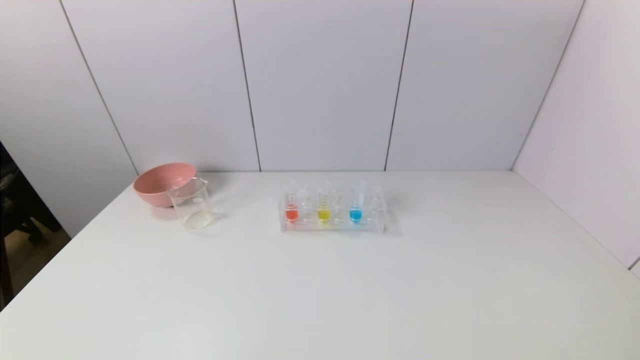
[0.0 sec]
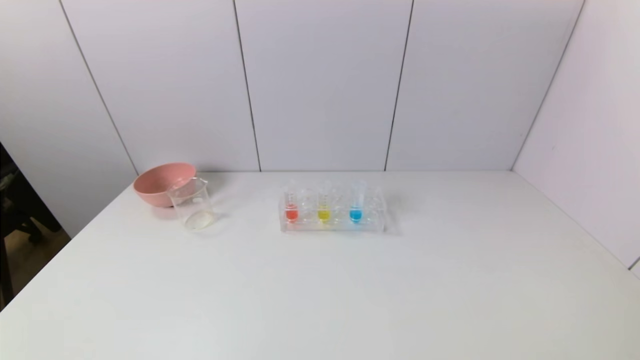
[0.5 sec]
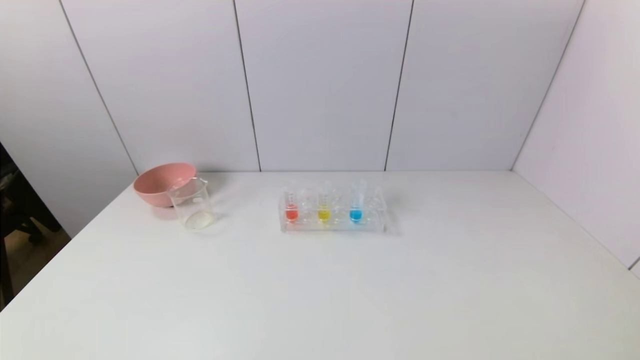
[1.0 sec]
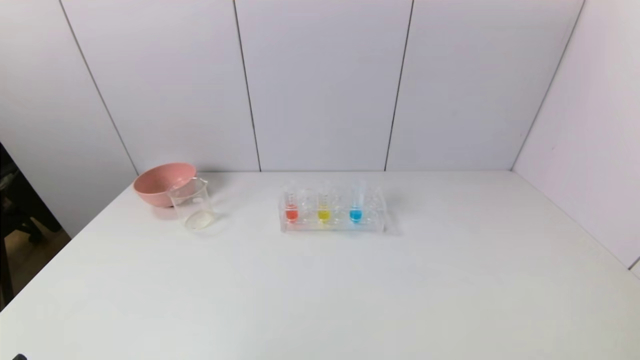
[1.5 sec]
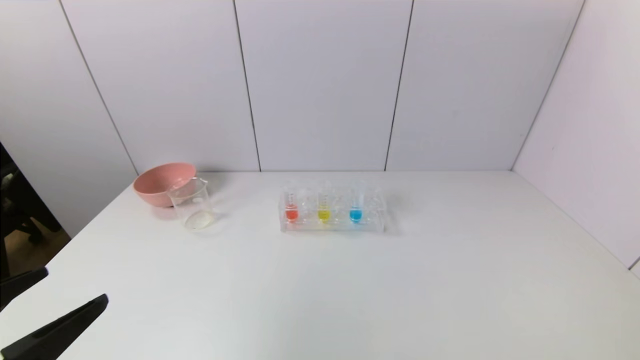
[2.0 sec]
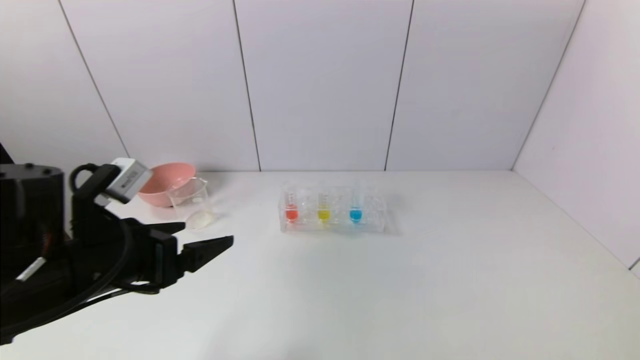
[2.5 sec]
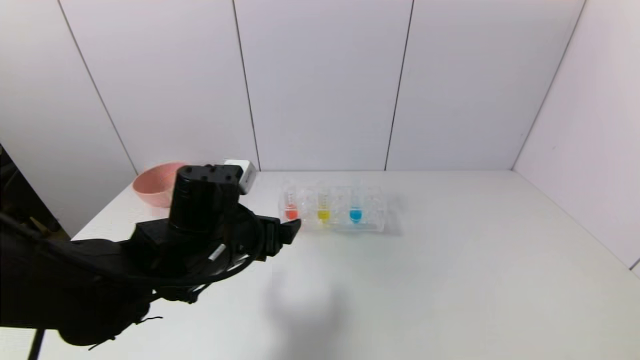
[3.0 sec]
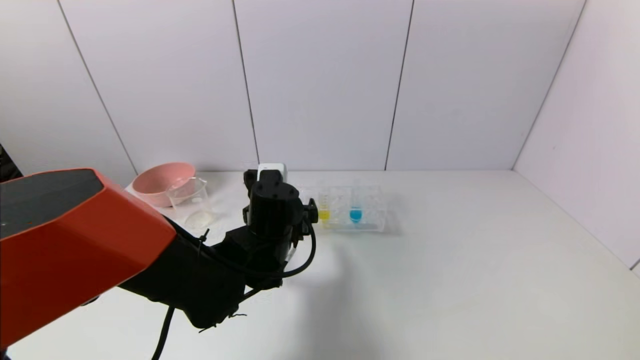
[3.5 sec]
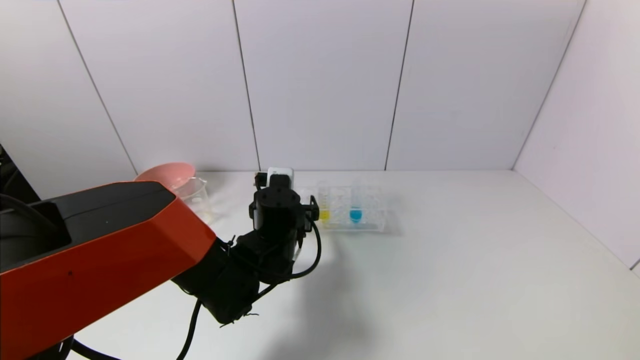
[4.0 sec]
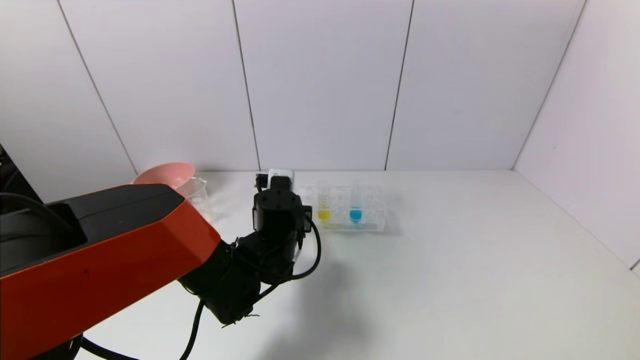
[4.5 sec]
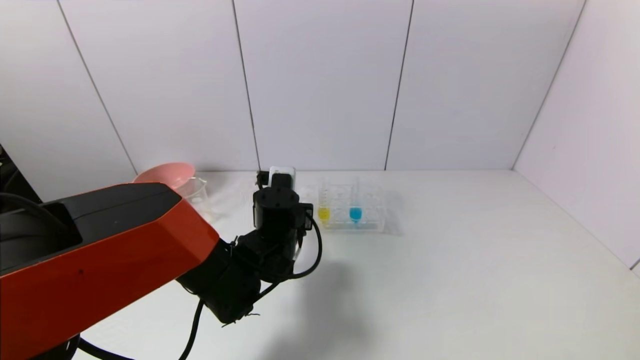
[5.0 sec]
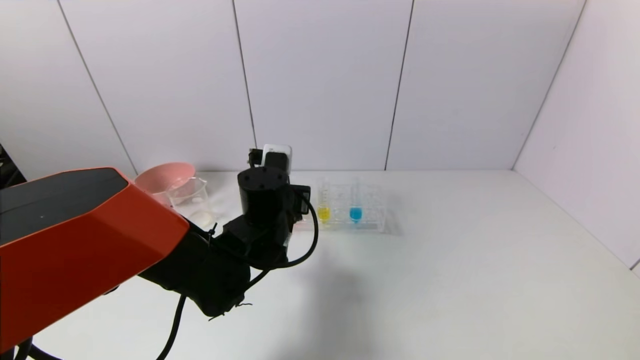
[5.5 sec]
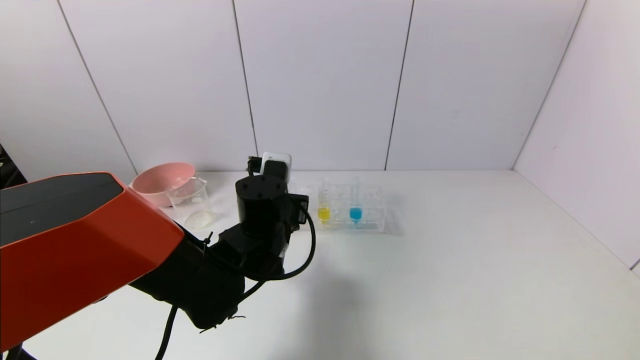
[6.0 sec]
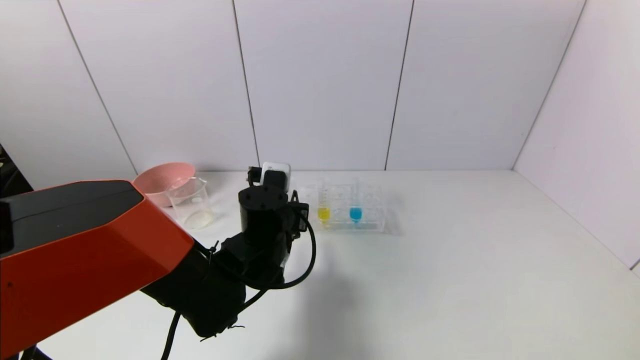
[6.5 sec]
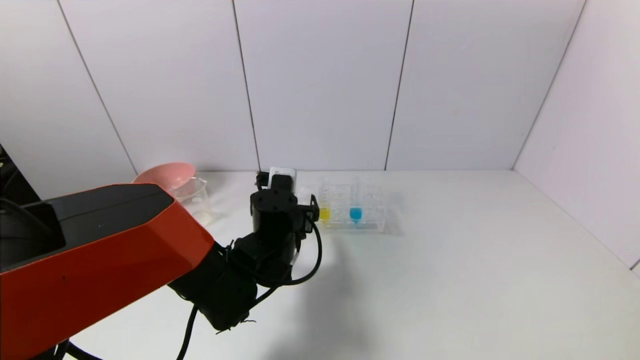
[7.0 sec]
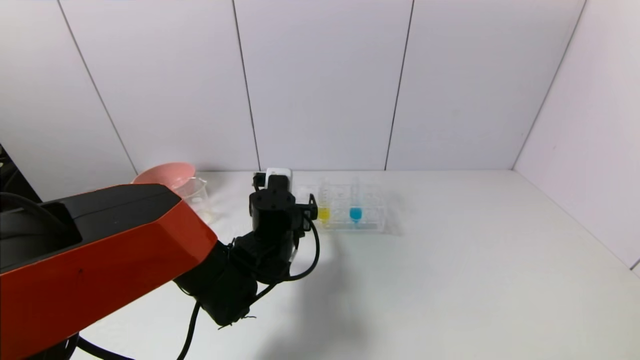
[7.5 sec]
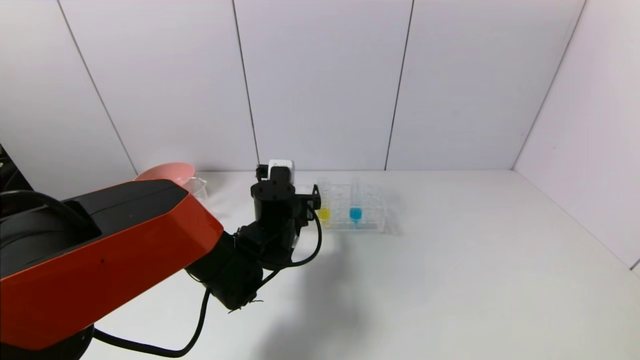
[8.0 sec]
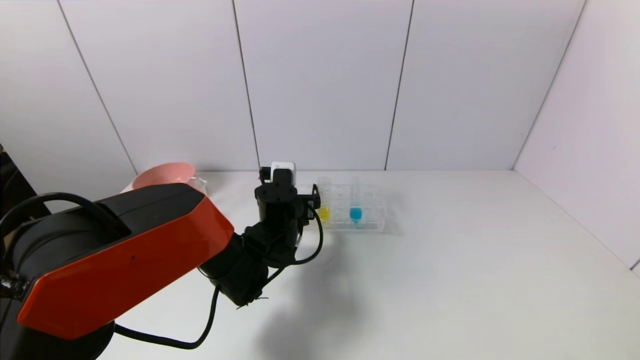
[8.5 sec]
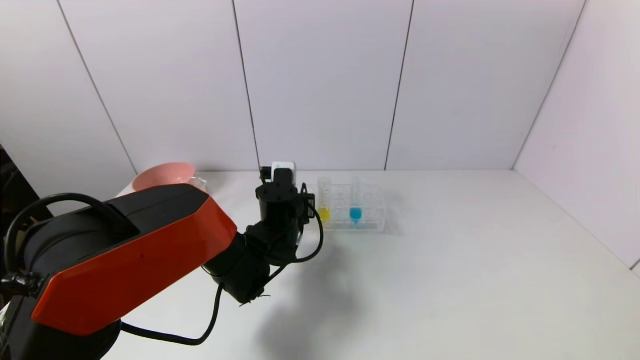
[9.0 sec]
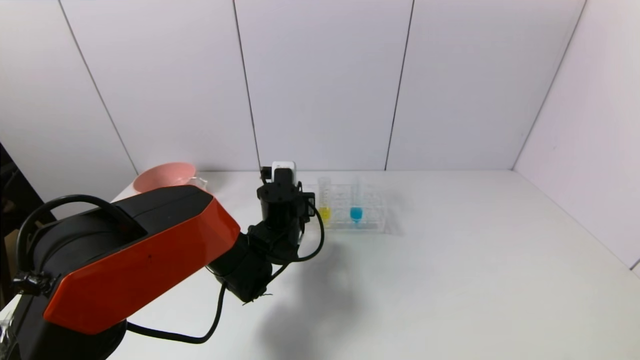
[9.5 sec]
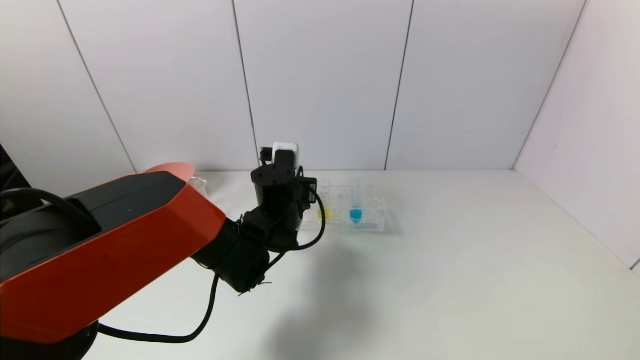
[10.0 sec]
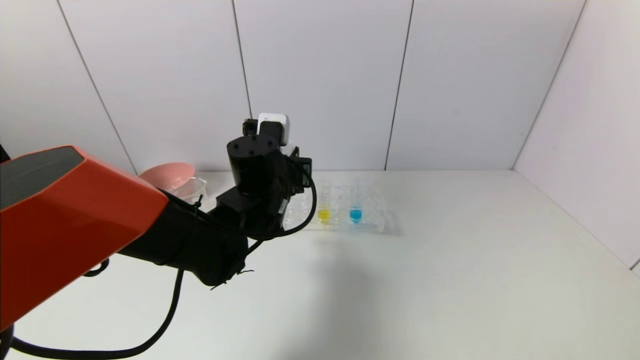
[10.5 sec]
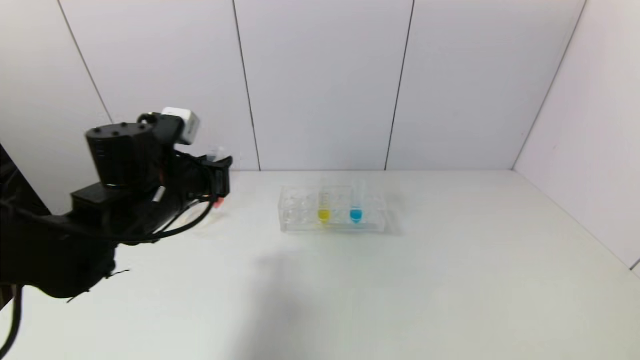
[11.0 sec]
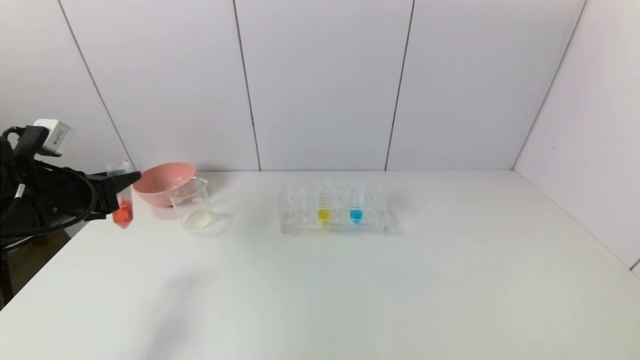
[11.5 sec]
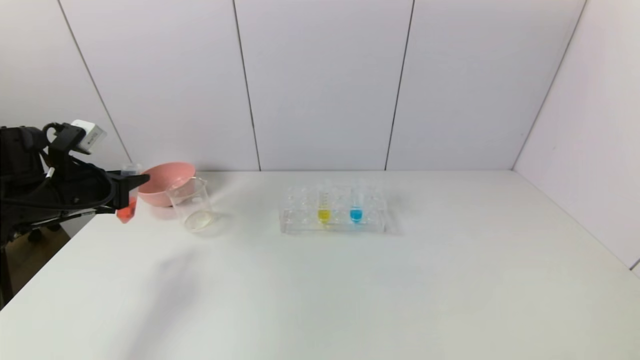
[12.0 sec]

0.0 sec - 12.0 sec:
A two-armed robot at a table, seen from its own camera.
Task of the whole recording: pick up the test tube with yellow pigment and the test tube with red pigment by grippers and pour them into the beaker.
Step, 0.0 sec - 9.0 sec: Grasp the red reagent with the left gripper.
0.0 sec - 2.0 sec: The left gripper heads upward and forward, covering roughly 15 cm.
2.0 sec - 4.0 sec: The left gripper is displaced forward and to the right by roughly 35 cm.
4.0 sec - 6.0 sec: The left gripper closes its fingers.
6.0 sec - 8.0 sec: The left gripper moves roughly 5 cm, and opens.
8.0 sec - 10.0 sec: The left gripper closes its fingers.
10.0 sec - 12.0 sec: The left gripper goes some 30 cm to the left.

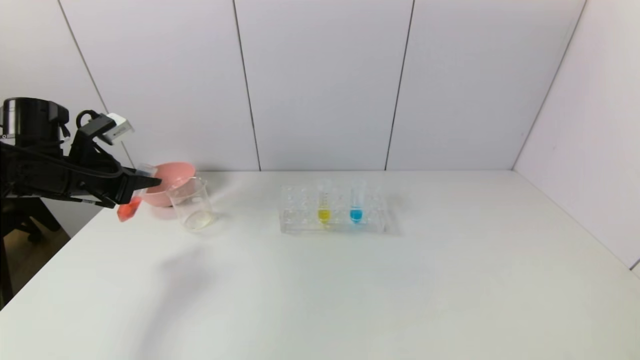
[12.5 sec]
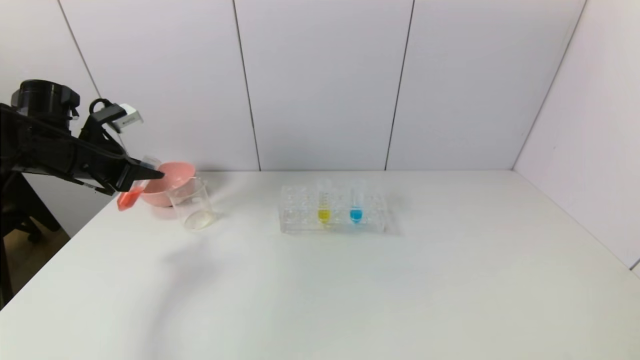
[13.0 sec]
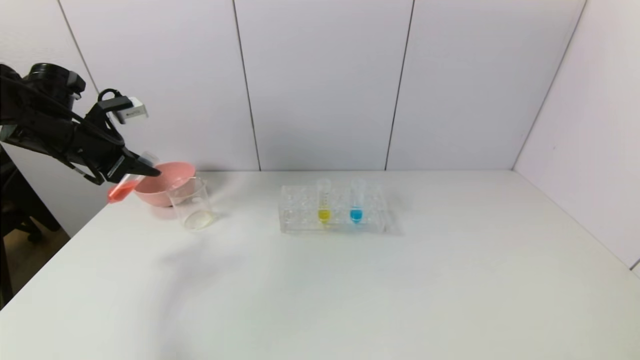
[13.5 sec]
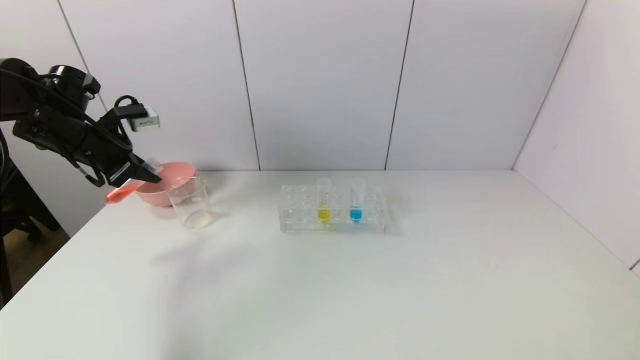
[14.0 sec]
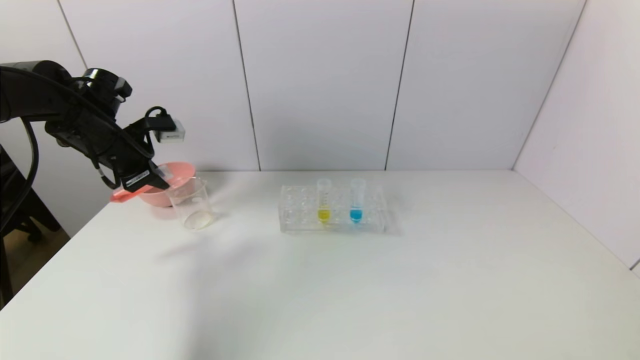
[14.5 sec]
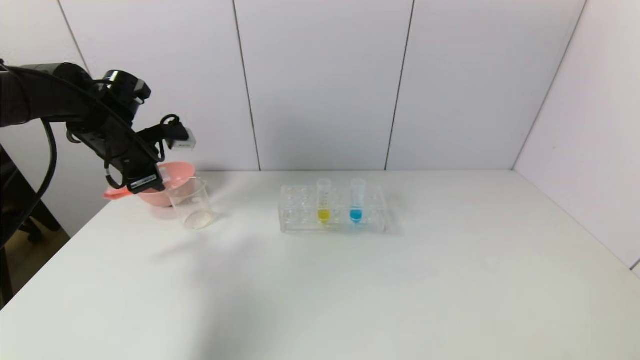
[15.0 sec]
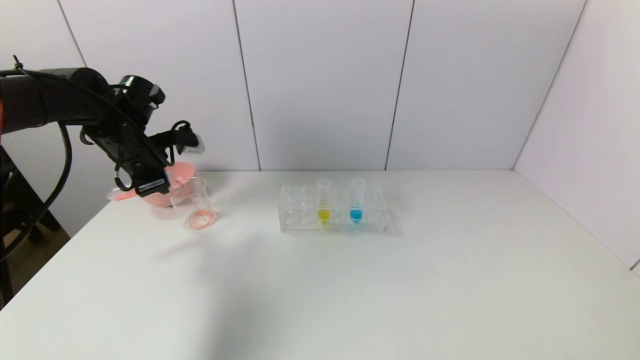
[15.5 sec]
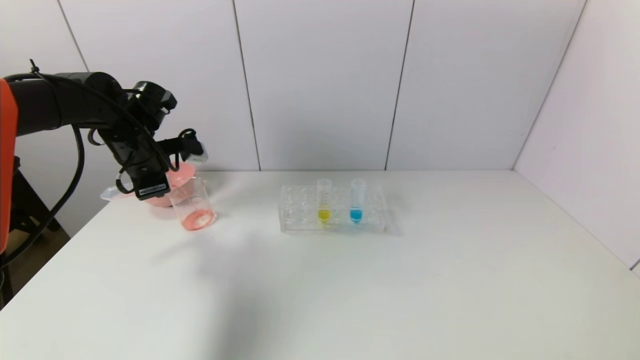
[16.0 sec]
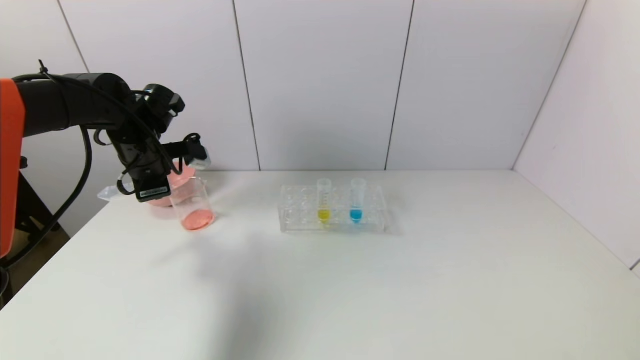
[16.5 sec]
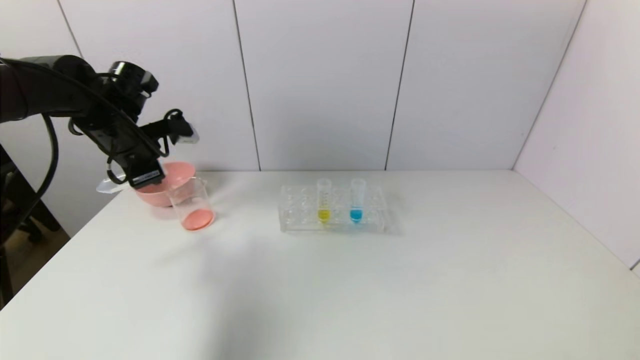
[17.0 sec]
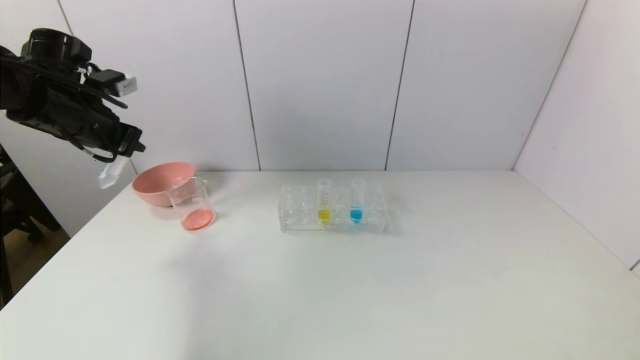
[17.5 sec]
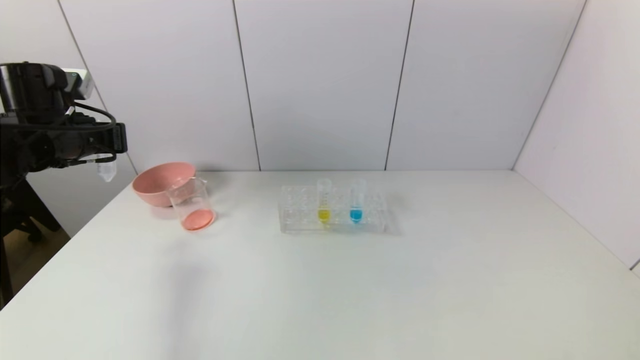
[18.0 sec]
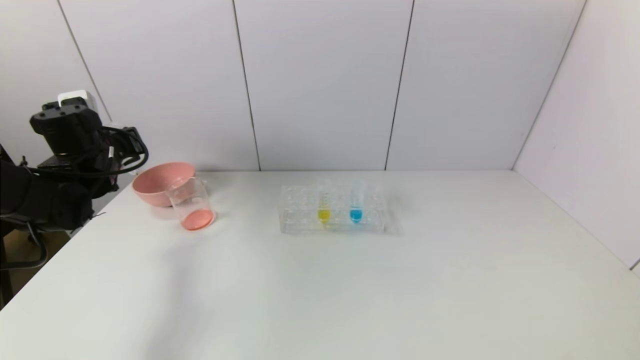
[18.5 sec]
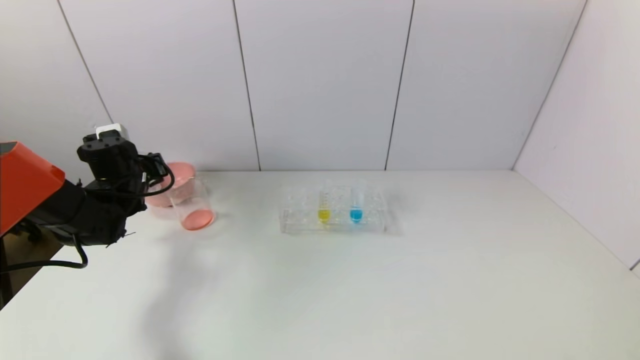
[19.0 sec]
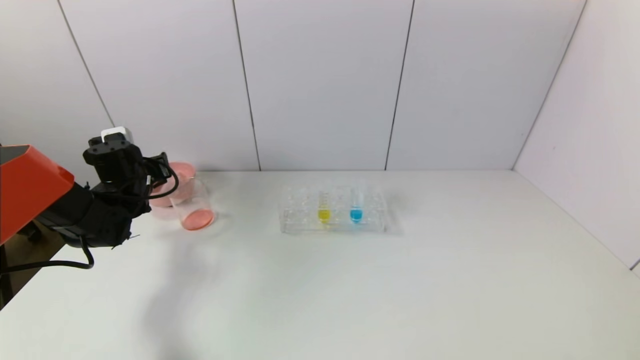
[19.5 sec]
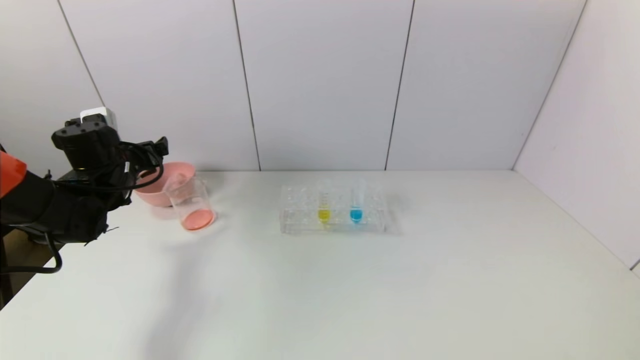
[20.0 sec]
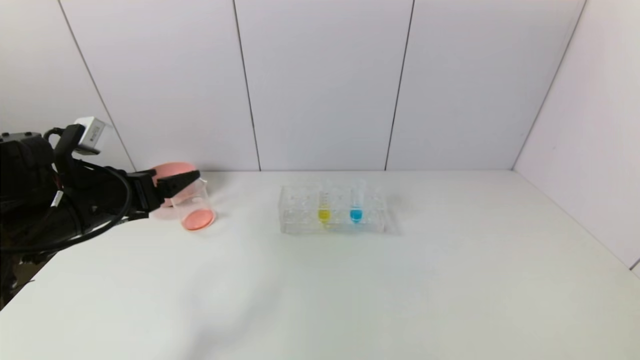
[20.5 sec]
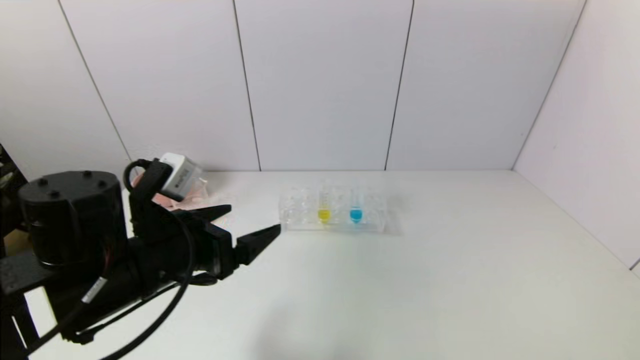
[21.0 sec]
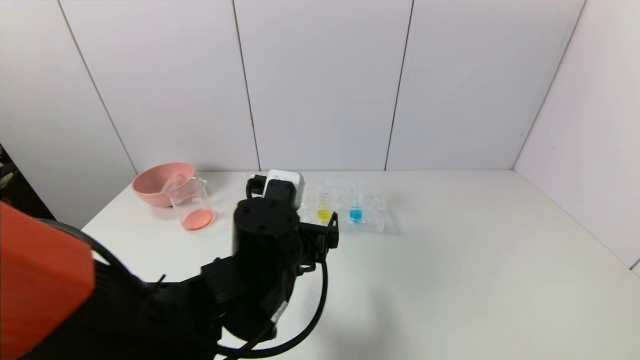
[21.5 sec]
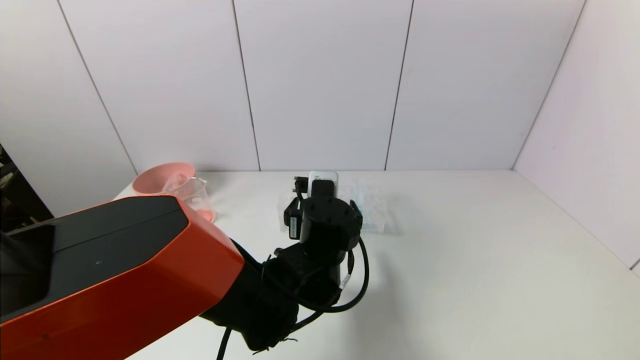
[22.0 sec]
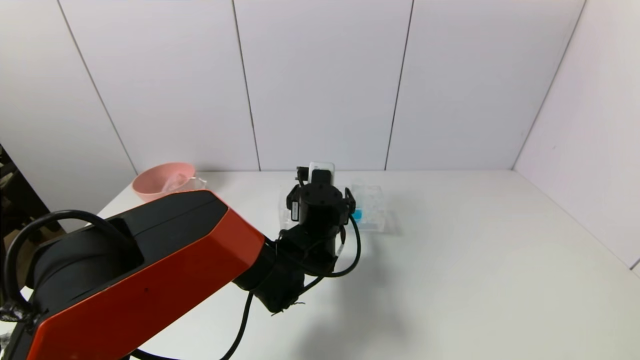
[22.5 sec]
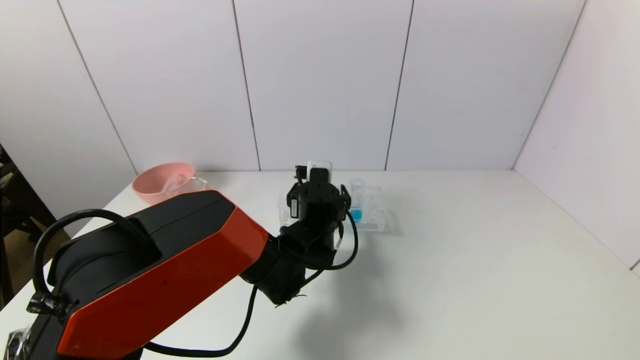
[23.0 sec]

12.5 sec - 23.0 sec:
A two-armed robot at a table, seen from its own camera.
Task of the whole recording: pick up the test tube with yellow pigment and the test tube with red pigment by grippers and pour them into the beaker.
Step, 12.5 sec - 16.5 sec: Pour the red reagent into the graduated cylinder with the left gripper.
Step, 17.0 sec - 19.5 sec: Place the test tube into the pink bowl with the left gripper.
12.5 sec - 14.5 sec: The left gripper goes approximately 5 cm forward.
14.5 sec - 16.5 sec: The left gripper heads to the right, covering some 5 cm.
16.5 sec - 19.0 sec: The left gripper travels downward and to the left by approximately 10 cm.
19.0 sec - 21.0 sec: The left gripper goes some 30 cm backward and to the right, and opens its fingers.
21.0 sec - 23.0 sec: The left gripper travels to the right, forward and downward by about 25 cm.
